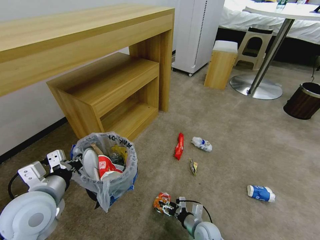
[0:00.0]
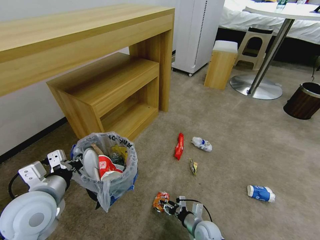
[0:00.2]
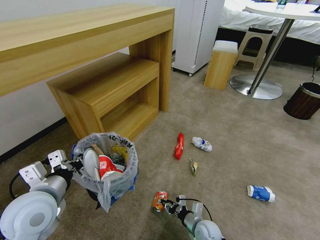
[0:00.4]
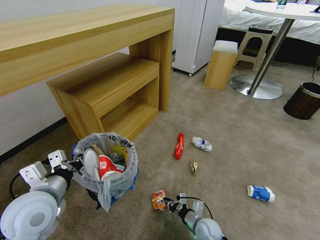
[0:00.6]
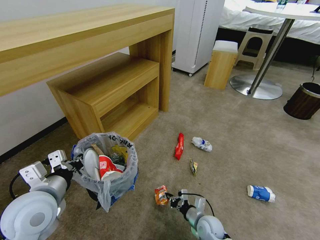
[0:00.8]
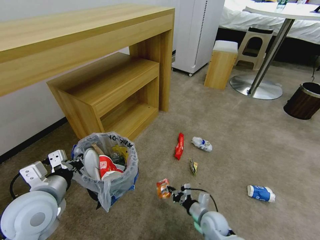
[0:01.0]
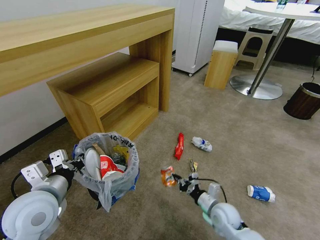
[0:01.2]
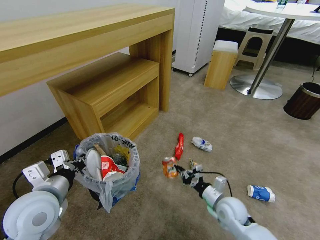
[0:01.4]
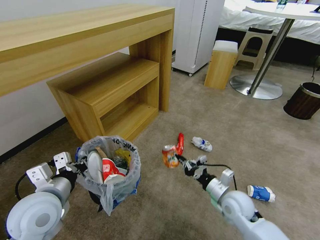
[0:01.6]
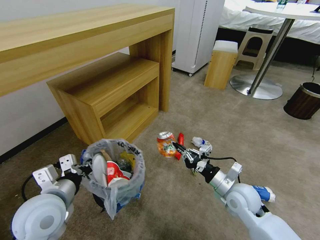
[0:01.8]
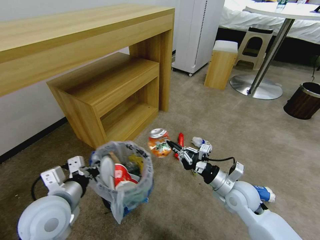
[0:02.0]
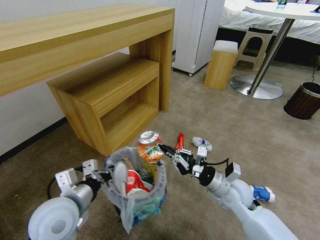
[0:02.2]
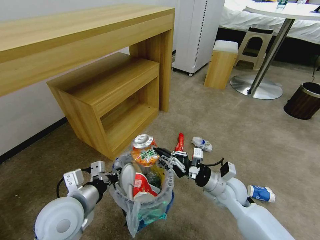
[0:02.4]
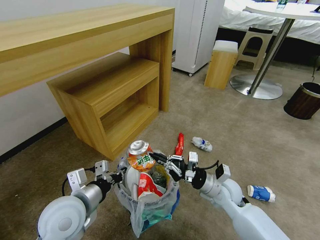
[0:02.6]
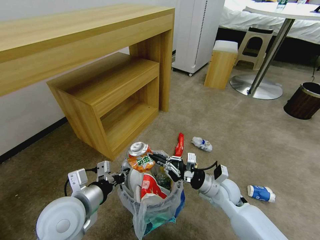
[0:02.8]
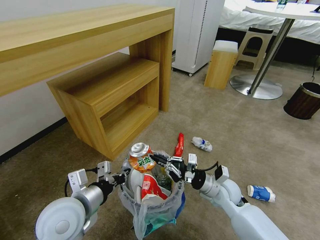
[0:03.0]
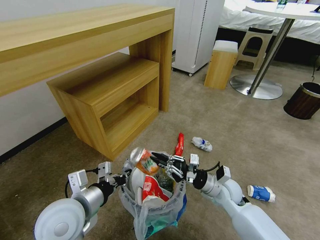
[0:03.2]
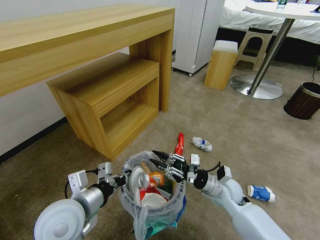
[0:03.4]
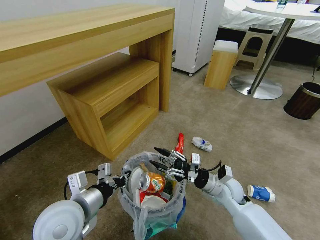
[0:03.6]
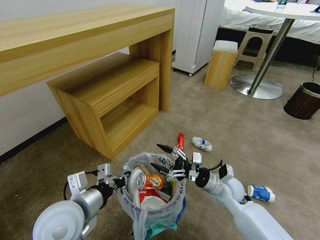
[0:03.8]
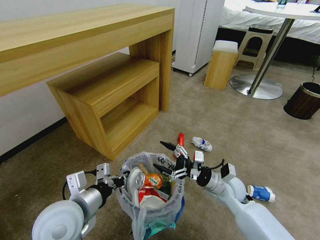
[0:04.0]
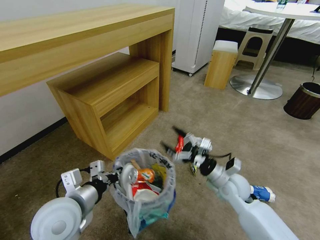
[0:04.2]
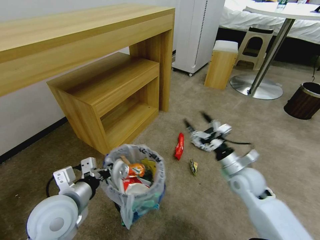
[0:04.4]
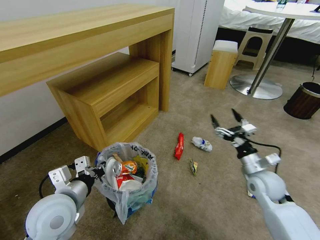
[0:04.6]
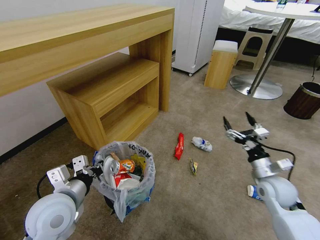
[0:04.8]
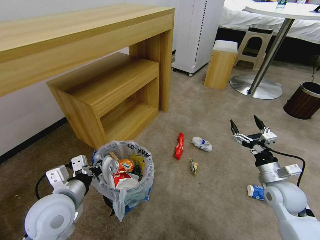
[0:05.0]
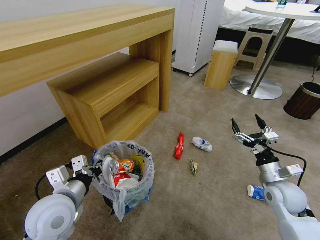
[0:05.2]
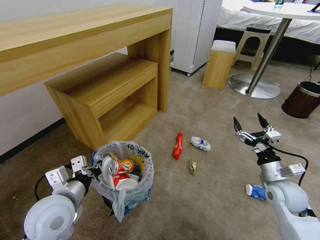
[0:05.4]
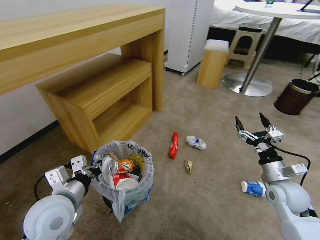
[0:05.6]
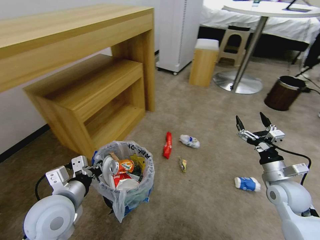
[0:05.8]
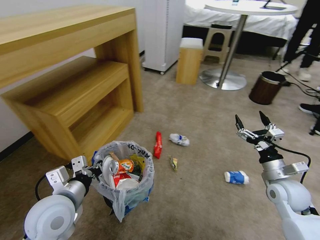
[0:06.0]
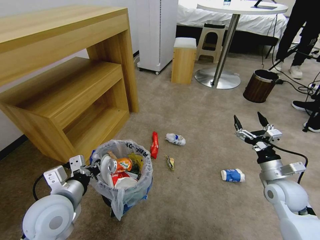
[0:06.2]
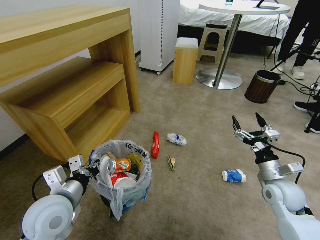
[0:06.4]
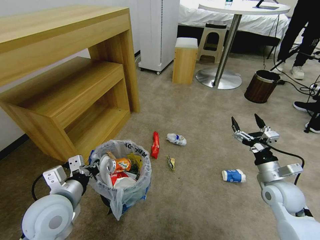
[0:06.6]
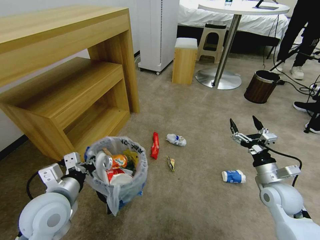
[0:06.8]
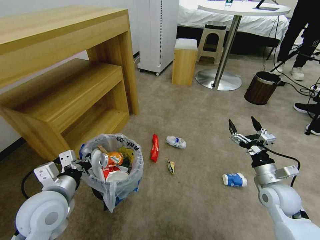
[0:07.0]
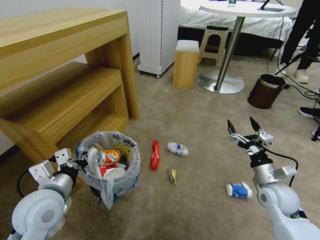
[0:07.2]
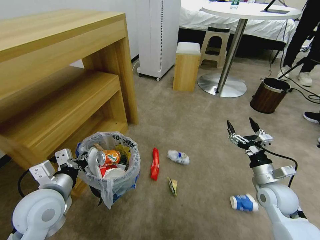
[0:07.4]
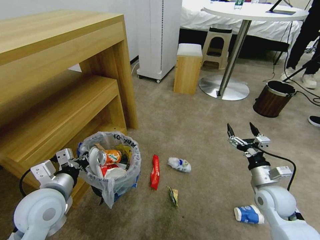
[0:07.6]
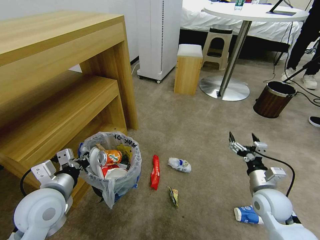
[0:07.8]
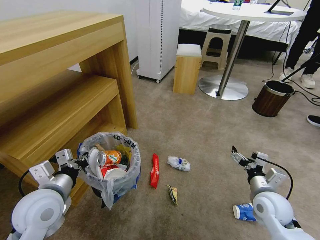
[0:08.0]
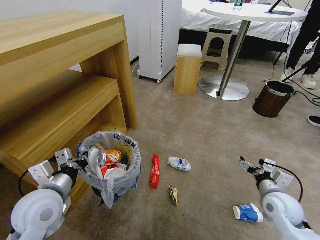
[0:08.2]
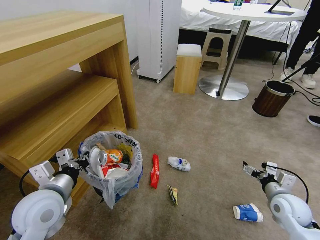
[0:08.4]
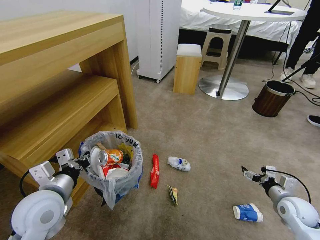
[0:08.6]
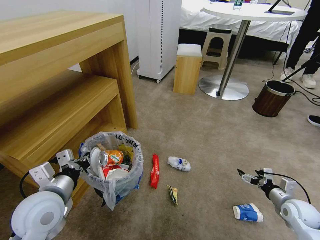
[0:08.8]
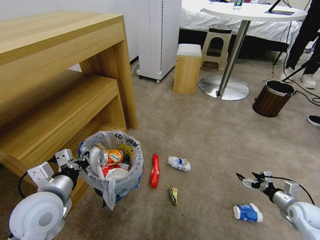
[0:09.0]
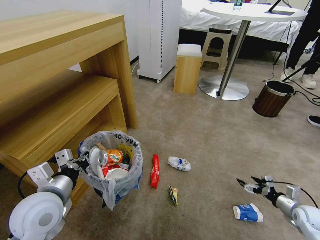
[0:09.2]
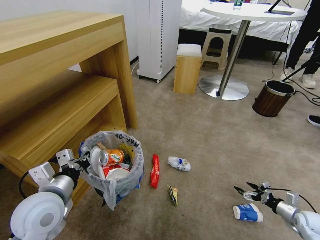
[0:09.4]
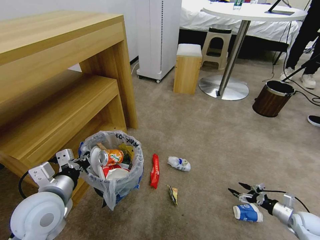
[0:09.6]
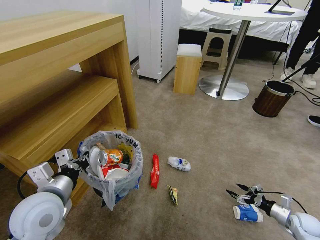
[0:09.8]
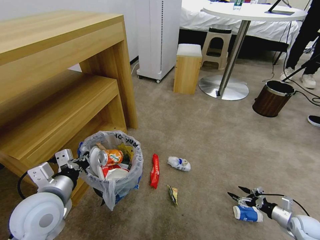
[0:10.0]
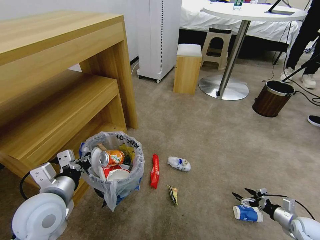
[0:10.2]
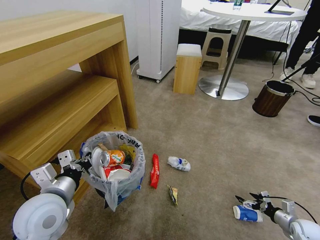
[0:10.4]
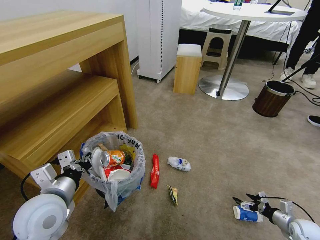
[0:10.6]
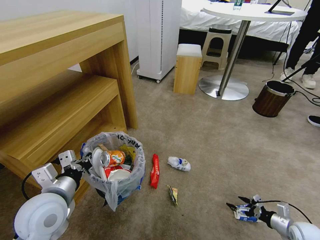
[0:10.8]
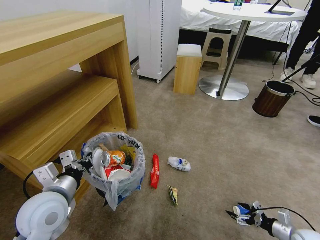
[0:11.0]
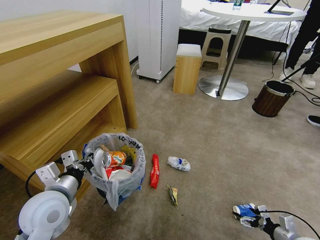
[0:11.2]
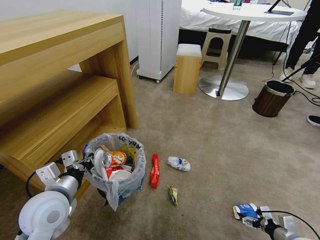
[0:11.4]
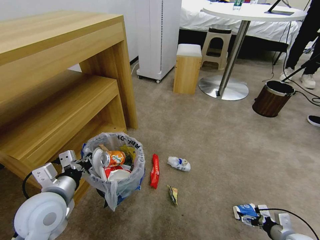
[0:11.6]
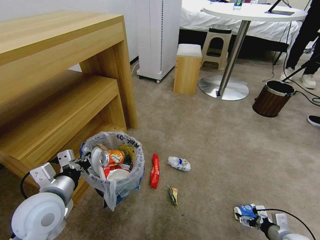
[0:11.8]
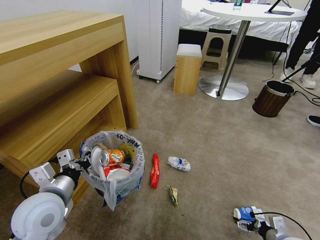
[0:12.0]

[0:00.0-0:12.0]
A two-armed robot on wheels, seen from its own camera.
Task of the whole recording: Pick up the trash bin and place the garbage on the floor into it.
0:00.0 to 0:01.6: The right gripper travels upward by roughly 20 cm, and closes its fingers.
0:01.6 to 0:03.0: The left gripper goes approximately 5 cm to the right.
0:03.0 to 0:04.4: The right gripper travels to the right and upward by about 10 cm, and opens up.
0:04.4 to 0:06.0: The right gripper is displaced to the right by about 10 cm.
0:07.6 to 0:09.0: The right gripper is displaced to the right and downward by some 20 cm.
0:09.0 to 0:10.4: The right gripper is displaced downward by some 10 cm.
0:10.4 to 0:12.0: The right gripper is displaced to the left and backward by some 10 cm.

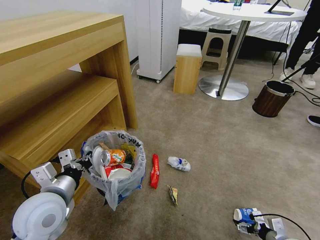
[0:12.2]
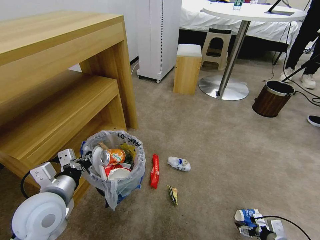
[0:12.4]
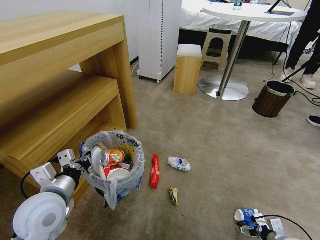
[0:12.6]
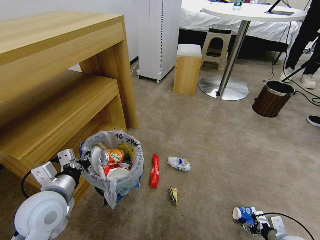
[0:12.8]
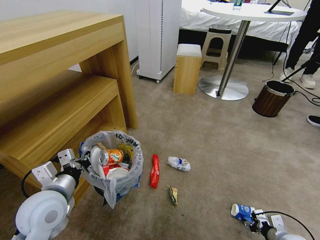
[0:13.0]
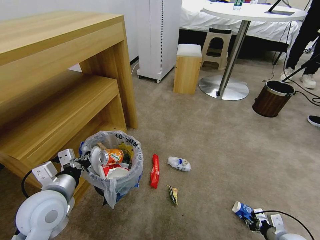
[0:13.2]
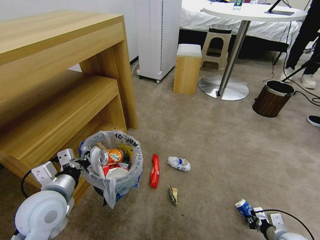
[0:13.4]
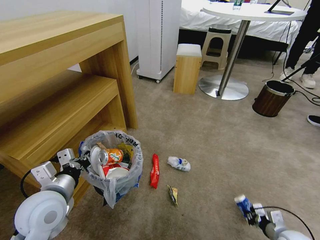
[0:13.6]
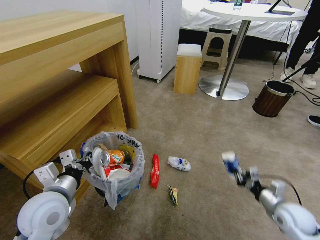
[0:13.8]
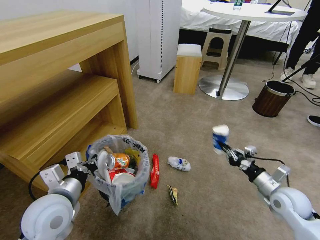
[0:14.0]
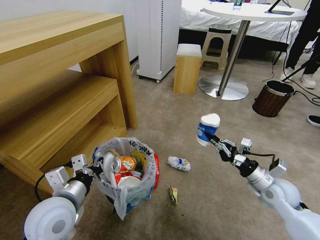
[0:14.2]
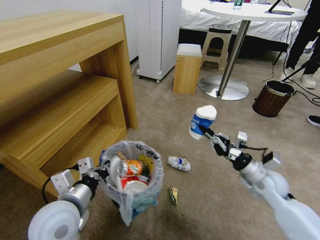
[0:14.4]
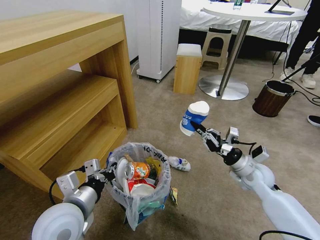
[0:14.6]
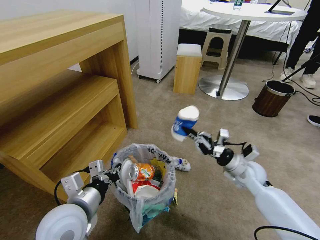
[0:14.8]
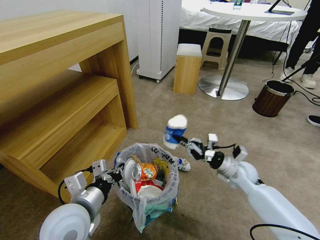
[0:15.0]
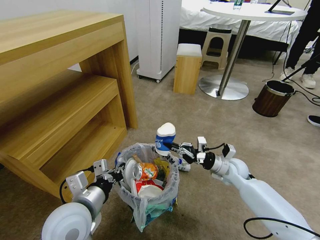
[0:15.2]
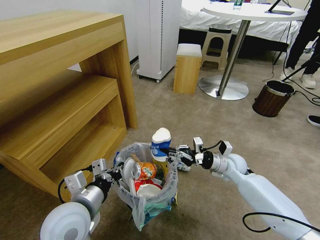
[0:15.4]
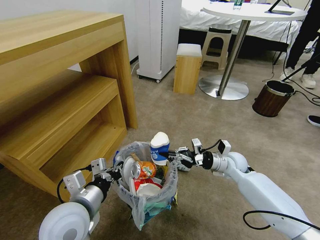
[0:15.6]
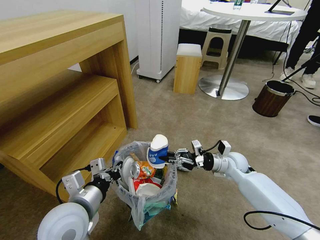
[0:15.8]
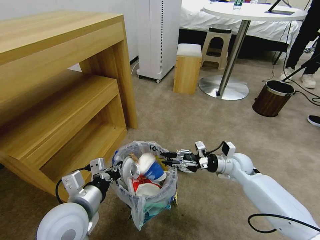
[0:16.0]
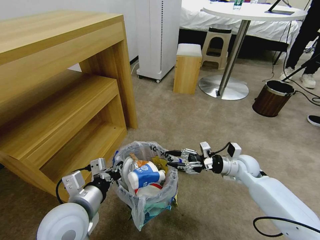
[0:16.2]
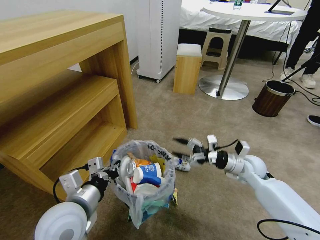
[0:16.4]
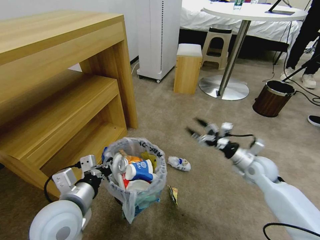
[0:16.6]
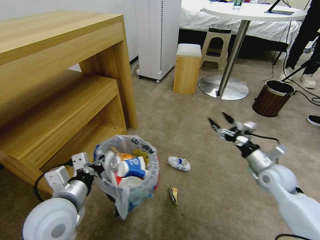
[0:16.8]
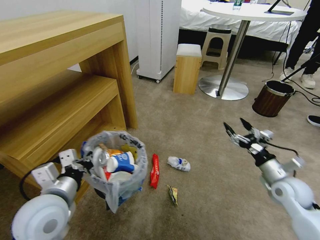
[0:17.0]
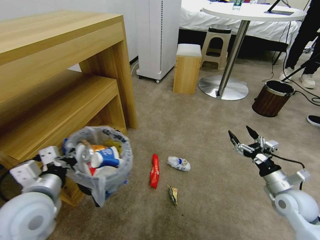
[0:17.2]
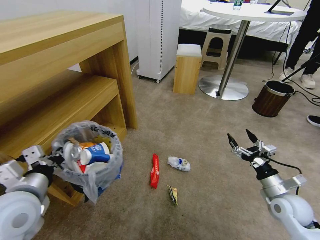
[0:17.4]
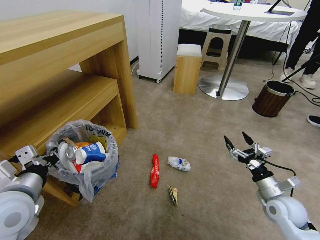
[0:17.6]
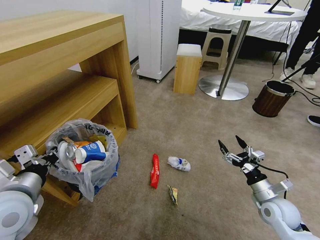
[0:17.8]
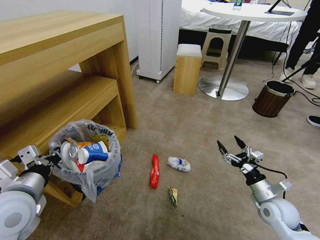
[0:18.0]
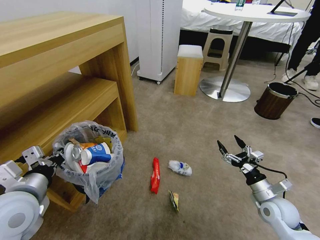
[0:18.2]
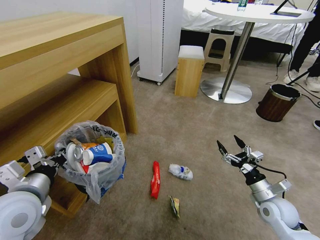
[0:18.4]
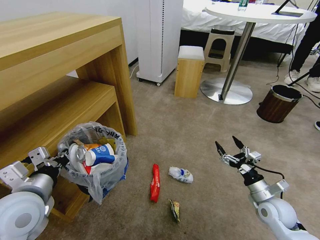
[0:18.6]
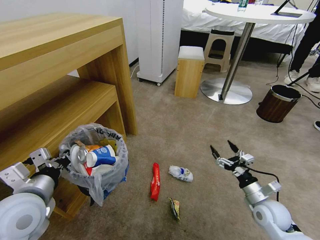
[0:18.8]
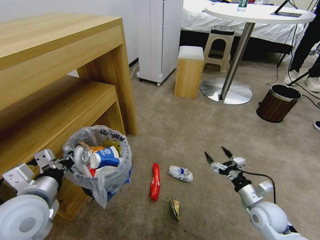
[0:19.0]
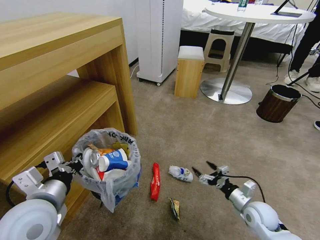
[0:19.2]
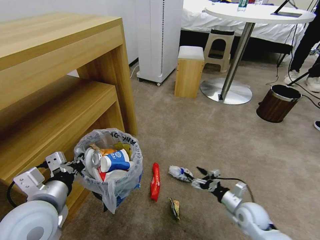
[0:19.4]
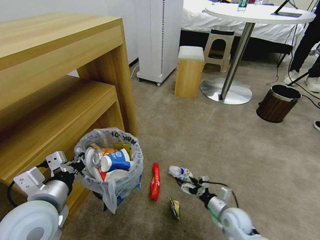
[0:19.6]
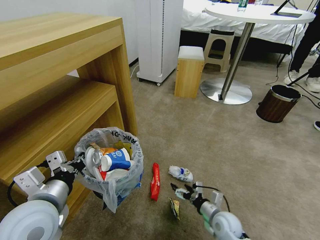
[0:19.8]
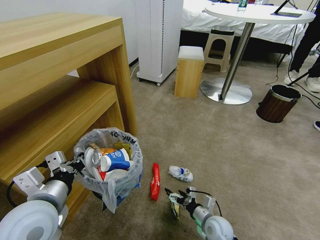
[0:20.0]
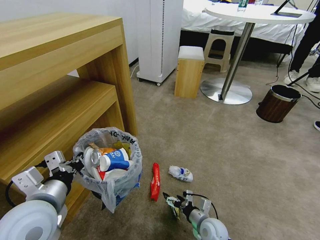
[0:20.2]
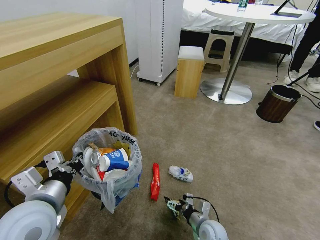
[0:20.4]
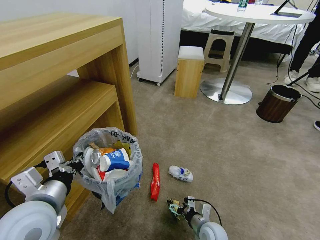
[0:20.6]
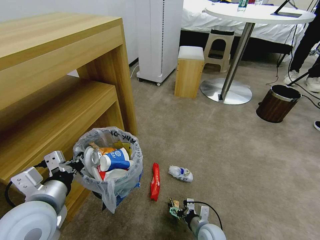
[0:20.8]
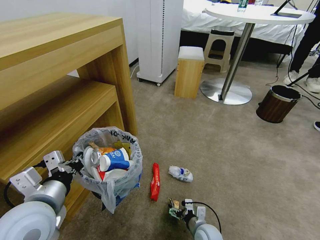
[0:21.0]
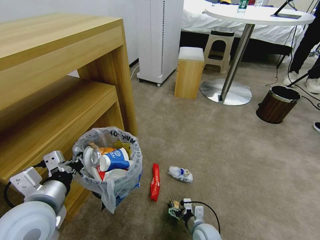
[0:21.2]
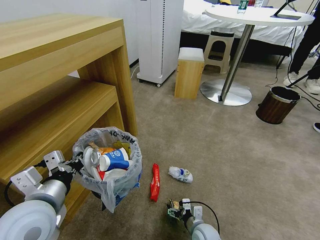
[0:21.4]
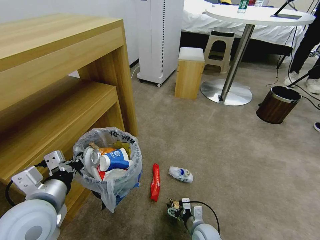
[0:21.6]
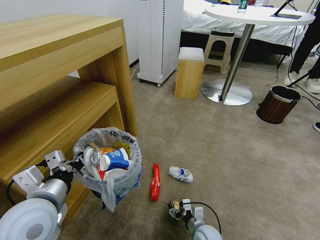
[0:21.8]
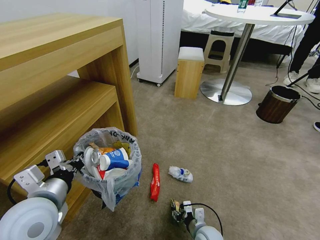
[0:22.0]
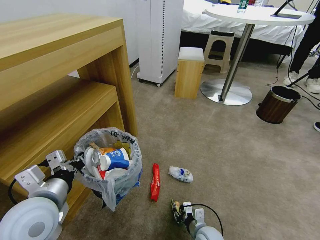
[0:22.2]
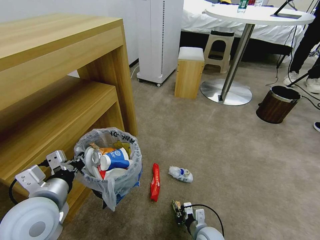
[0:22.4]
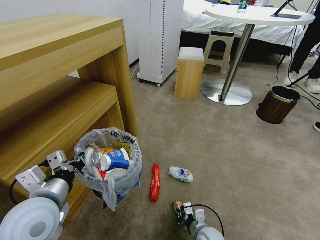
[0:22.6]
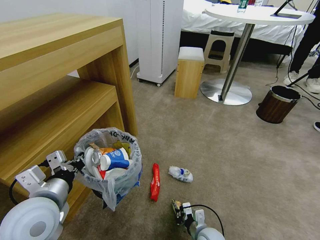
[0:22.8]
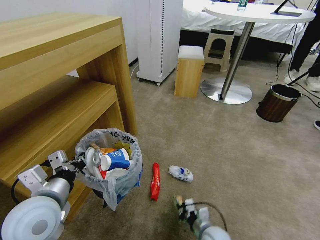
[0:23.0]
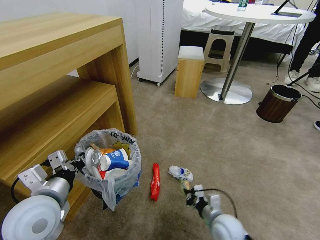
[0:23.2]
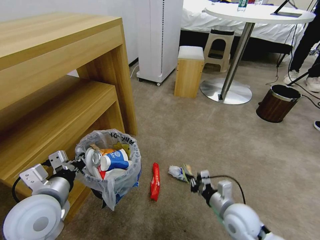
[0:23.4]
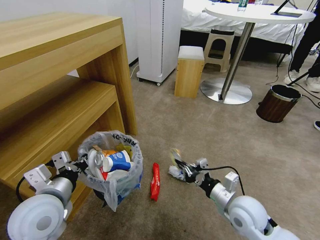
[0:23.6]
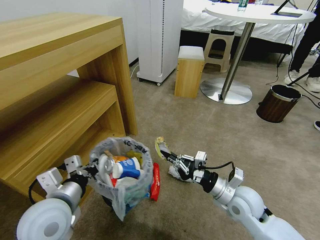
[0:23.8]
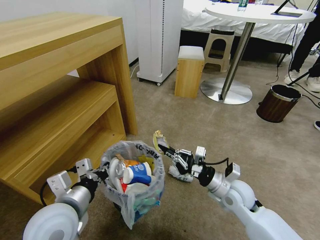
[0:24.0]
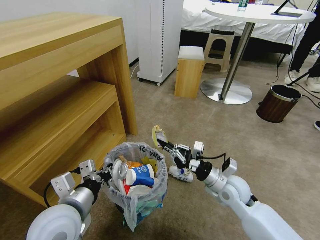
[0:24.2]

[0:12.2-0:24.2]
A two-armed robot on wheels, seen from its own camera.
Task of the whole recording: Pick up the trash bin and place the garbage on the floor into it.
0:12.2 to 0:13.8: The right gripper heads upward and forward, covering about 10 cm, and closes.
0:13.8 to 0:15.2: The right gripper heads forward and to the left, covering some 20 cm. Meanwhile the left gripper heads to the right, covering roughly 5 cm.
0:15.2 to 0:16.6: The right gripper is displaced to the right and upward by some 10 cm, and opens up.
0:16.6 to 0:18.2: The left gripper goes approximately 10 cm to the left, while the right gripper travels backward and downward by roughly 15 cm.
0:18.2 to 0:19.8: The right gripper goes some 20 cm to the left and downward. Meanwhile the left gripper moves to the right, about 5 cm.
0:19.8 to 0:21.2: The right gripper heads to the left and downward, covering approximately 10 cm.
0:21.2 to 0:22.6: The right gripper closes.
0:22.6 to 0:24.2: The right gripper heads upward and forward, covering roughly 20 cm.
